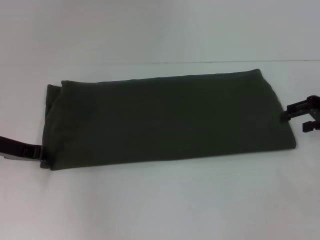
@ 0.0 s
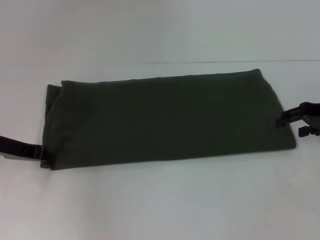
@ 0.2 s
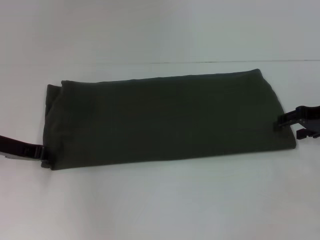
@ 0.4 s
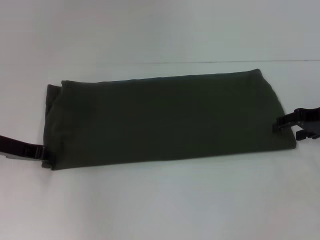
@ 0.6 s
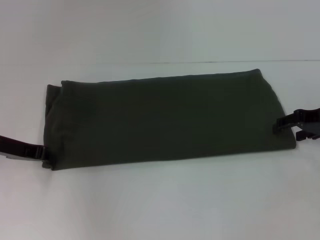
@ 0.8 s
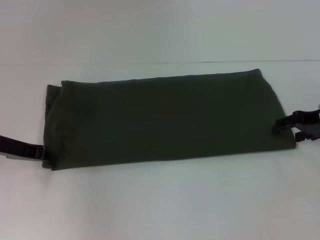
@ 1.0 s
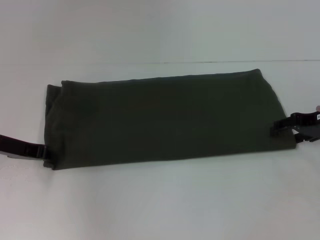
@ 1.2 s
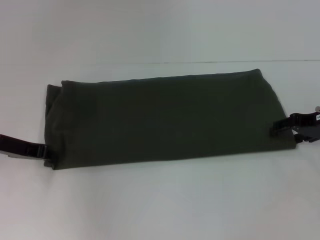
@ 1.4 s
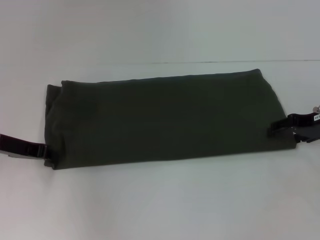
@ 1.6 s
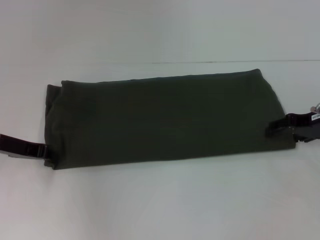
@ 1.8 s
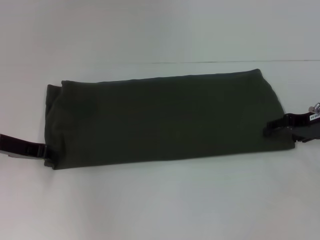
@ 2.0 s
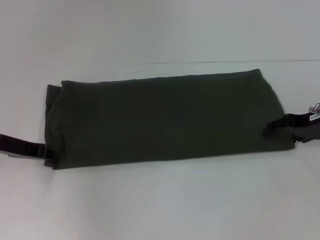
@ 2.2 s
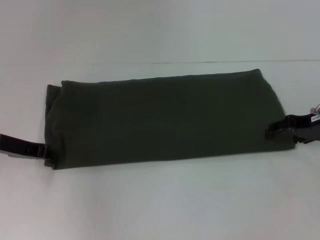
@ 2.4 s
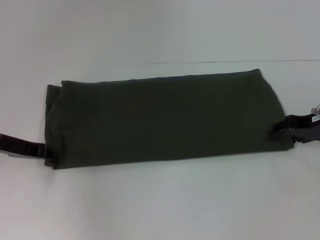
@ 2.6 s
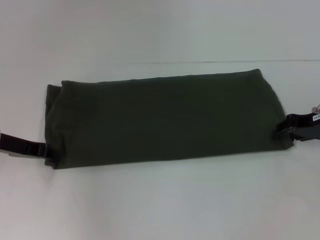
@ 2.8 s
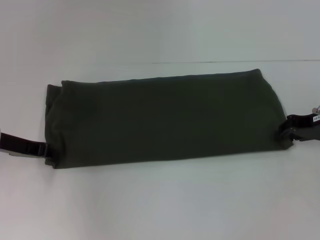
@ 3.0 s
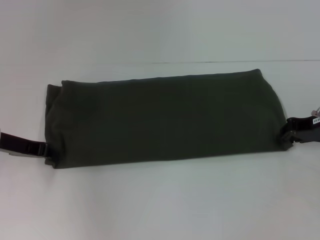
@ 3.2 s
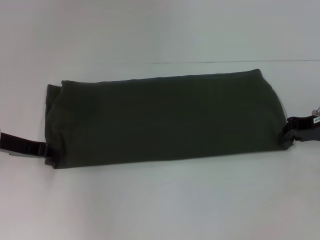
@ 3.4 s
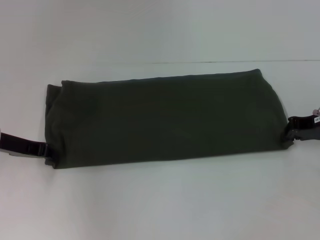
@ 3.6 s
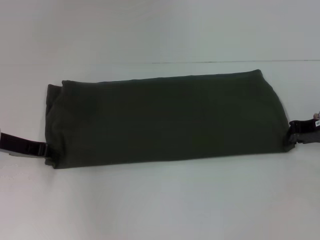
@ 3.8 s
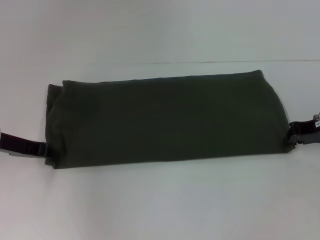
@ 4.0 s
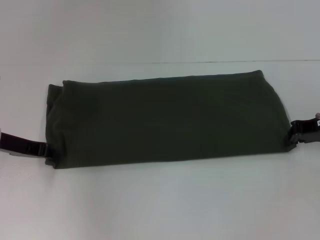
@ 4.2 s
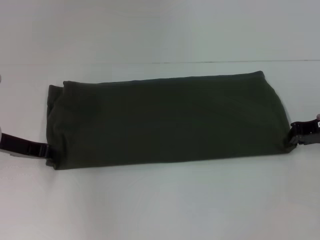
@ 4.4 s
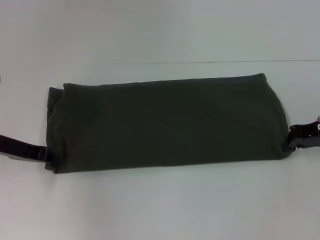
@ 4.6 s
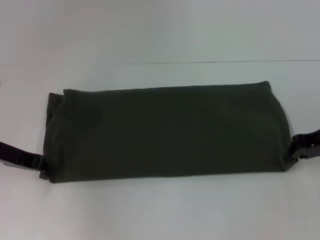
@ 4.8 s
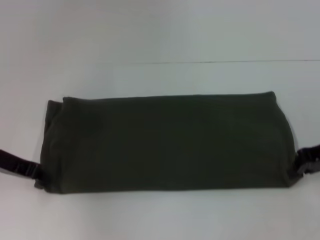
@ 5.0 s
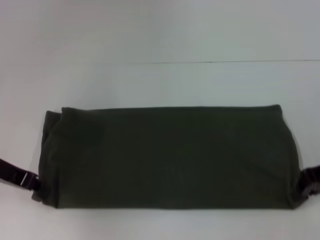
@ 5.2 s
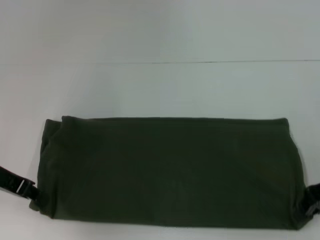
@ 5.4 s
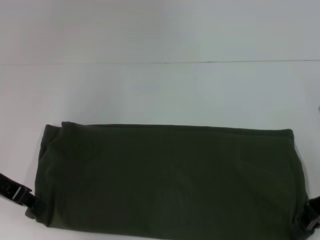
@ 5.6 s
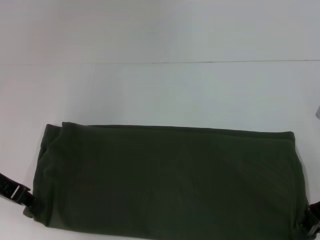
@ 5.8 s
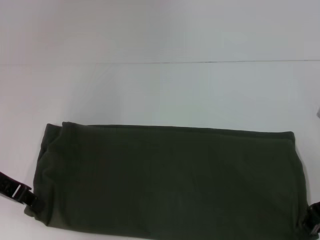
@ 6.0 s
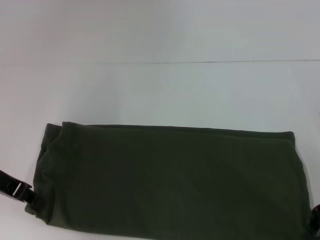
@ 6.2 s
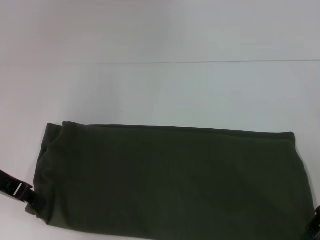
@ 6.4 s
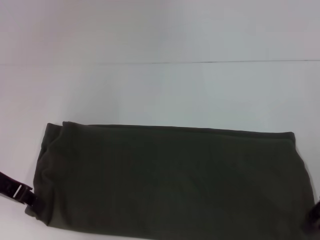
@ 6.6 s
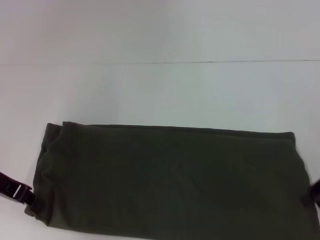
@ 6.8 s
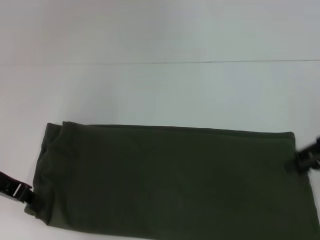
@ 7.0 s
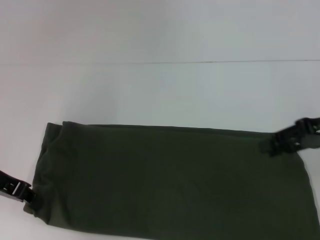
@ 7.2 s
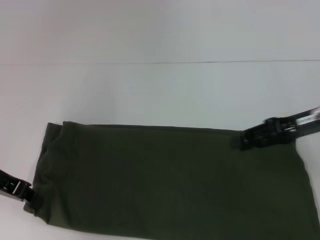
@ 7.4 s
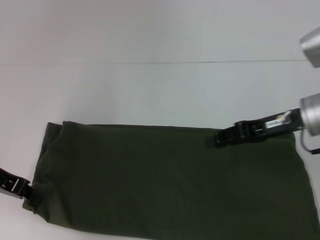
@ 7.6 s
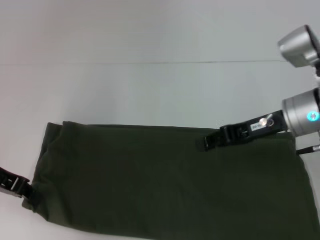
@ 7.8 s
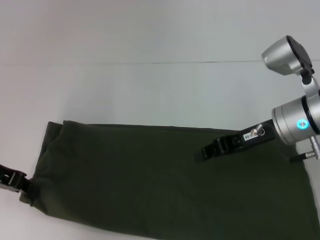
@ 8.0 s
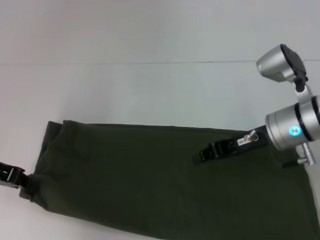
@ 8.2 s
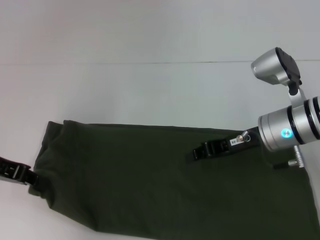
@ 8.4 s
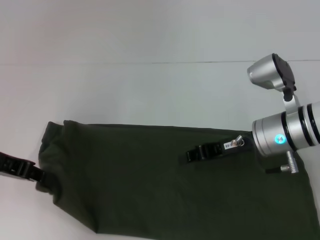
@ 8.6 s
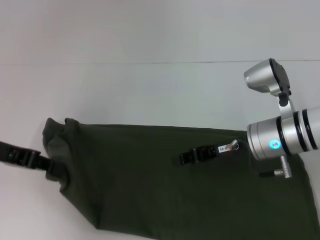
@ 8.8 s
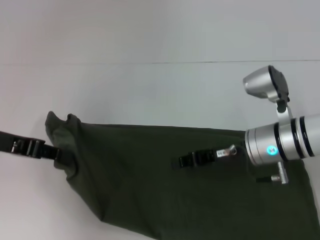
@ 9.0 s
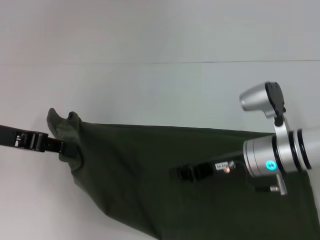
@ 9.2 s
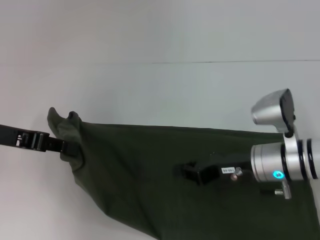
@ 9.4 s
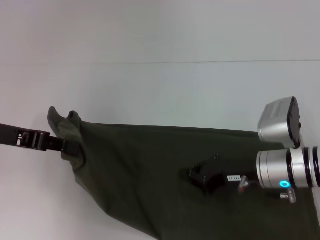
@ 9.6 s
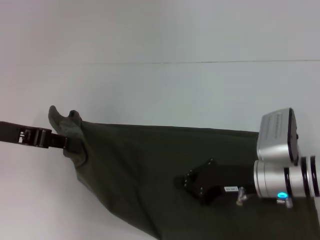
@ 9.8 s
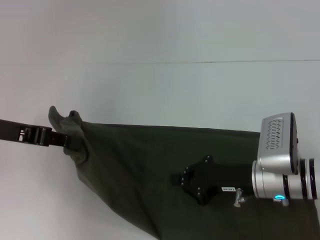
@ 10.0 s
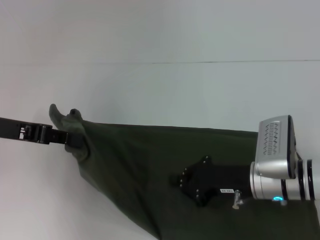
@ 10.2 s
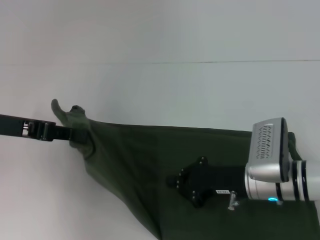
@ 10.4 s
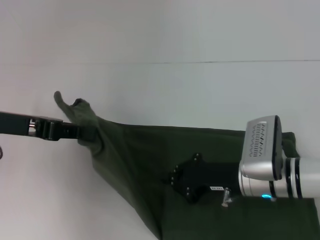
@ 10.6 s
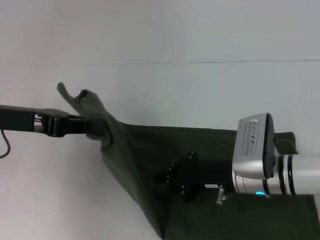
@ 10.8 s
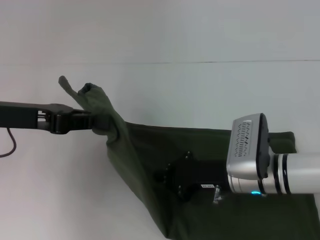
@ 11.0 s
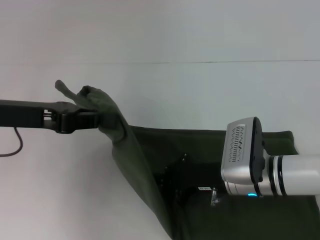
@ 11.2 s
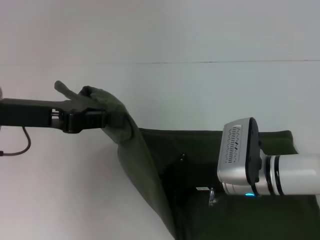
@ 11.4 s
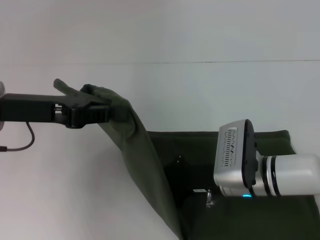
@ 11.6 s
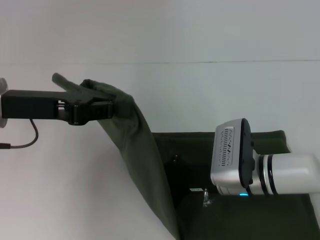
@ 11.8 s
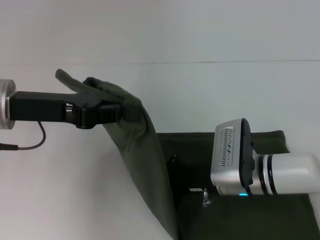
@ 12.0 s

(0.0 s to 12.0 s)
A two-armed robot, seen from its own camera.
0.0 s - 1.6 s: There are only small adjustments of the grippers.
3.0 s - 4.4 s: The right gripper closes up.
4.4 s - 6.0 s: The left gripper shifts by some 5 cm. The right gripper heads backward, covering approximately 5 cm.
6.0 s - 7.6 s: The right gripper heads to the left, covering about 5 cm, and opens up.
7.6 s - 9.0 s: The right gripper goes about 10 cm to the left and downward, and closes.
9.0 s - 10.4 s: The right gripper ends up about 5 cm from where it was.
10.4 s - 12.0 s: The left gripper shifts some 5 cm to the right.

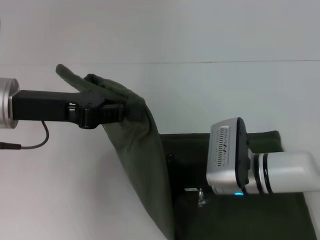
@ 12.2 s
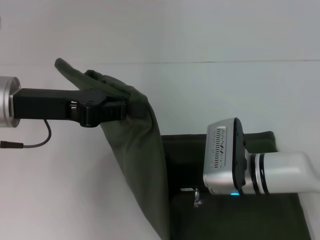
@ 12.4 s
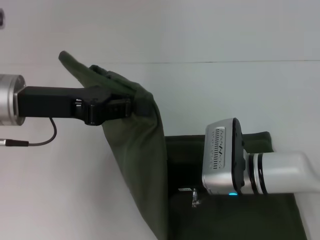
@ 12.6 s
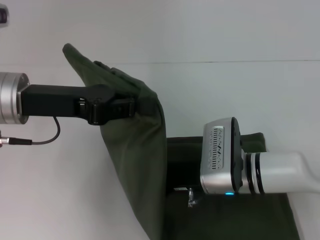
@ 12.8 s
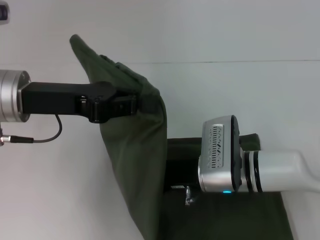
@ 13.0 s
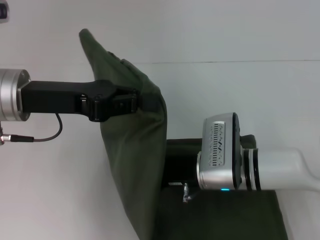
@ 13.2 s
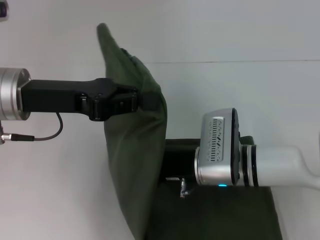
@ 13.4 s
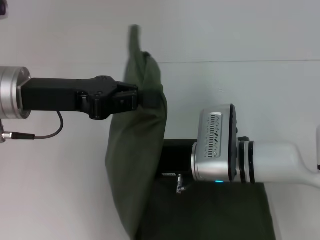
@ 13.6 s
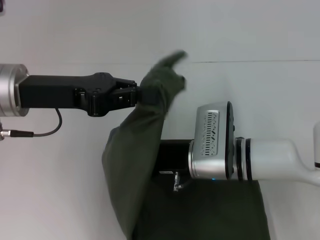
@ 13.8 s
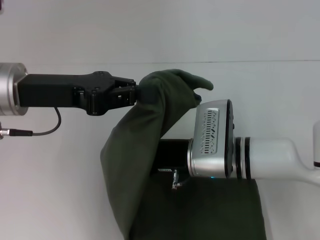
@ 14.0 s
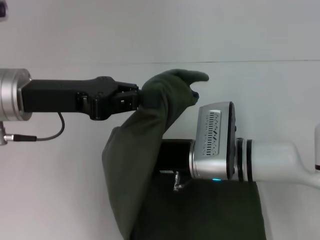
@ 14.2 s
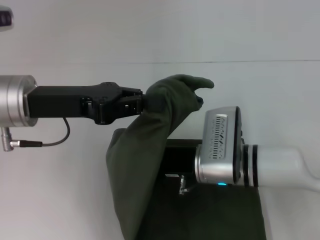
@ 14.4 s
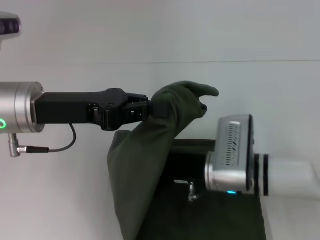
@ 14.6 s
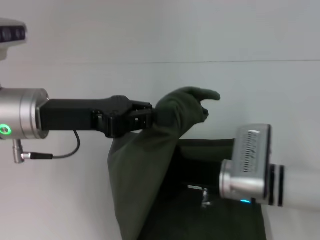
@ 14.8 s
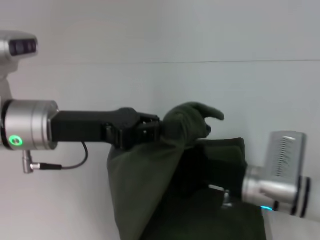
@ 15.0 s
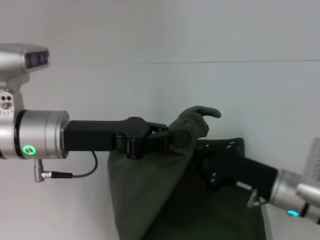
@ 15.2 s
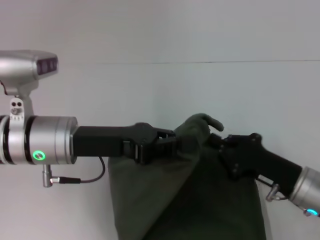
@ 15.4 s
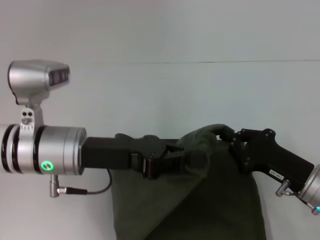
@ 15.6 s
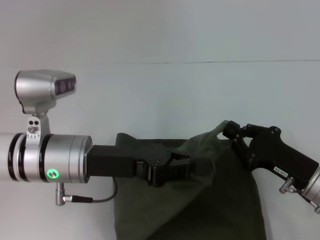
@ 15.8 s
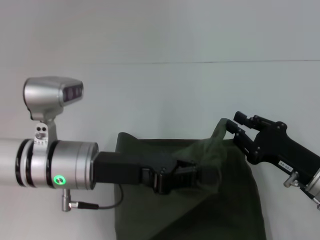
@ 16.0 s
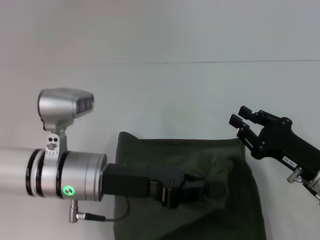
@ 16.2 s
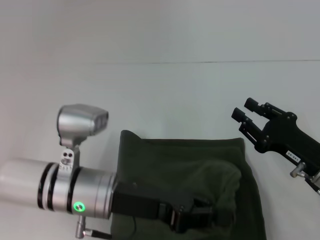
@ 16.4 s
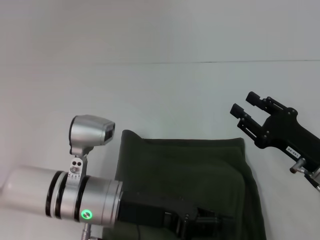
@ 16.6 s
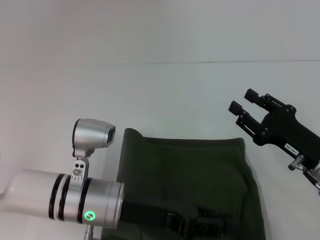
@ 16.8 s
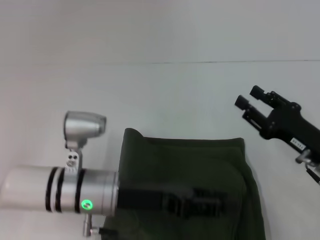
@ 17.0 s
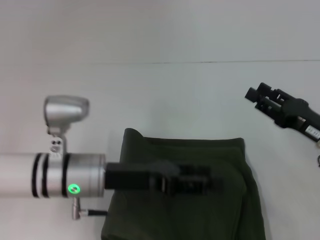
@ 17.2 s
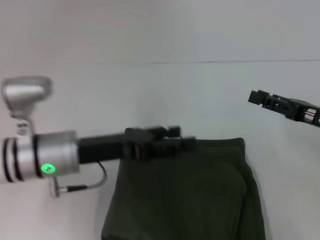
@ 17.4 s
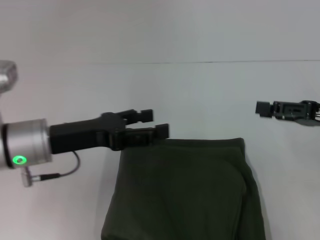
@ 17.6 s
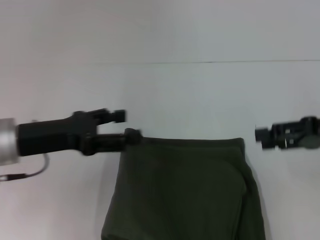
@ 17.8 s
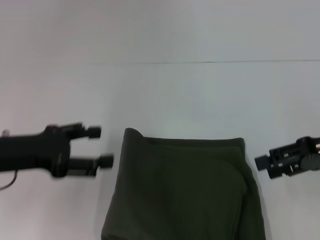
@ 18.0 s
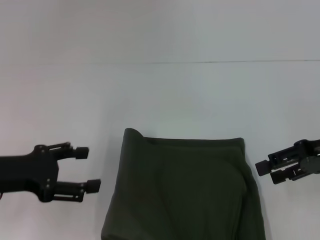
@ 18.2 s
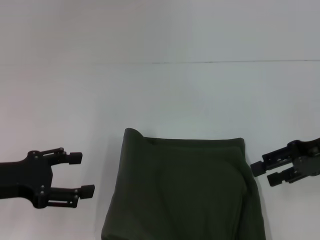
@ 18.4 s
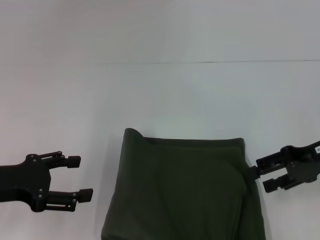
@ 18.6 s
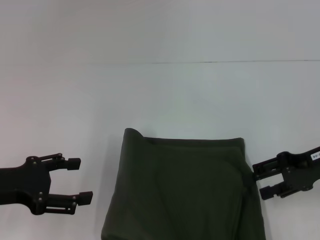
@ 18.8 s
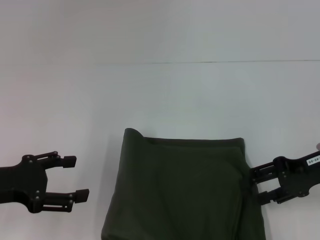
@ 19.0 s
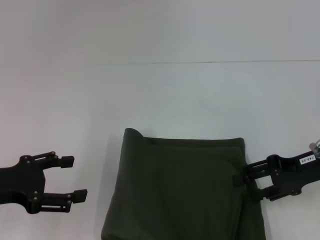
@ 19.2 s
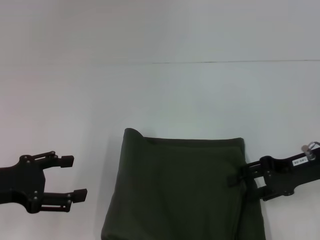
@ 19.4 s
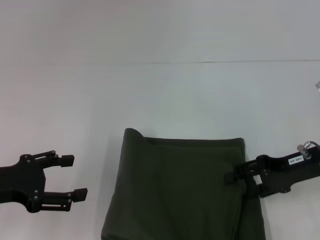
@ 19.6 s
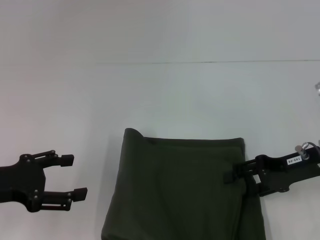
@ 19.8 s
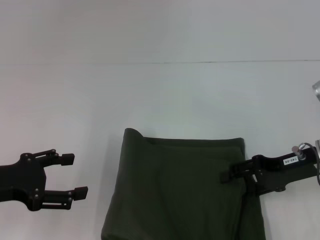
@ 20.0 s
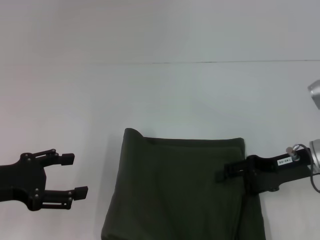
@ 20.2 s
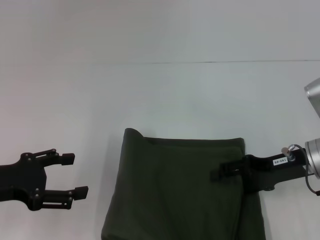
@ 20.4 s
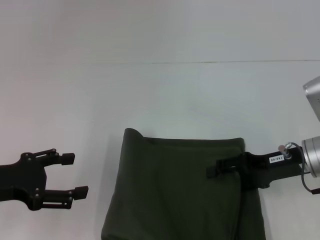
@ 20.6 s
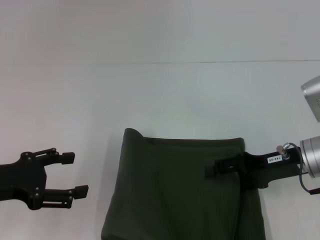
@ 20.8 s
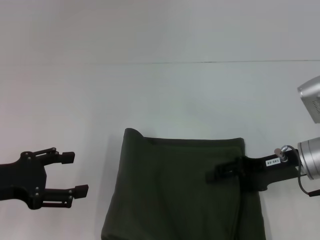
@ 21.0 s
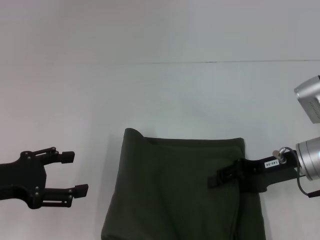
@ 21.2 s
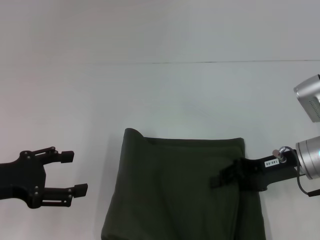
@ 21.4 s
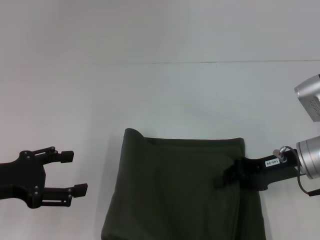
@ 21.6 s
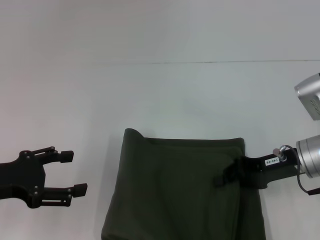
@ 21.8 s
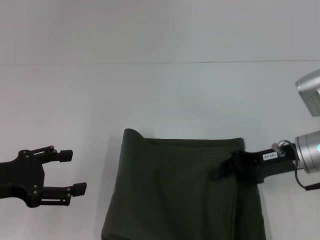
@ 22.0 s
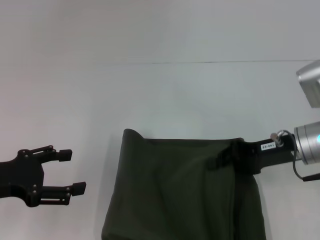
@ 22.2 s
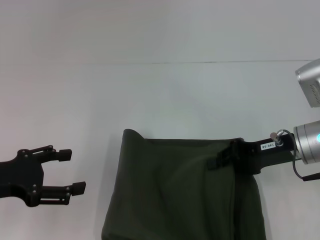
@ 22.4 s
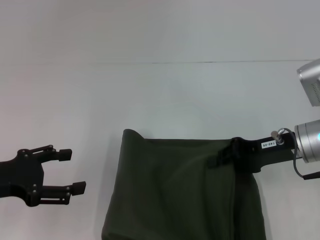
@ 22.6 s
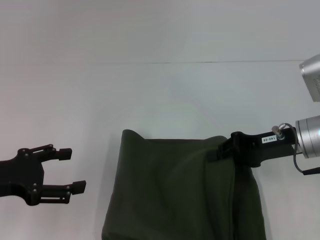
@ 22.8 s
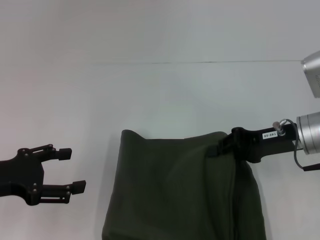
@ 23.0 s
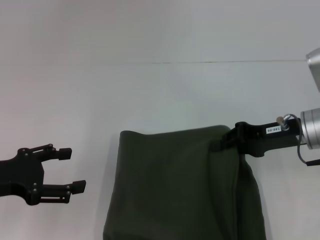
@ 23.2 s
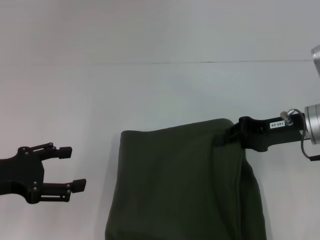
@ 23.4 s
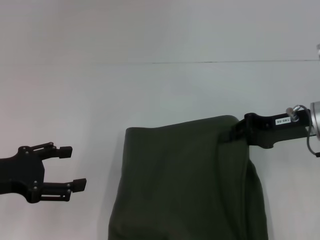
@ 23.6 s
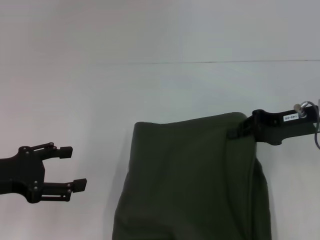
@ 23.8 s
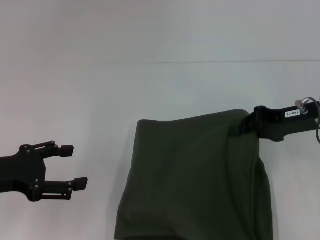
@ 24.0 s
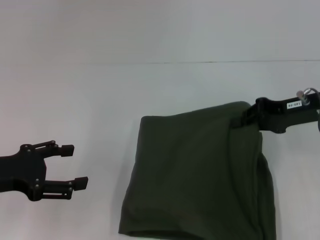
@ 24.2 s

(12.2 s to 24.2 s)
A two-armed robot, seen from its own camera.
Step, 12.2 s - 17.0 s: Fold the clothes with your left hand.
13.8 s - 15.2 s: The right gripper travels to the right and backward by roughly 10 cm. The left gripper is displaced downward by roughly 5 cm.
15.2 s - 16.6 s: The left gripper goes some 10 cm downward and to the right. The right gripper moves to the right, some 5 cm, and opens.
16.6 s - 18.2 s: The right gripper is displaced upward and forward by approximately 15 cm; the left gripper is displaced to the left by roughly 15 cm, and opens its fingers.
18.2 s - 19.8 s: The right gripper is displaced downward by approximately 5 cm.
19.8 s - 21.2 s: The grippers move only a little.
21.2 s - 22.6 s: The right gripper closes its fingers.
22.6 s - 24.2 s: The right gripper changes place by about 5 cm.
